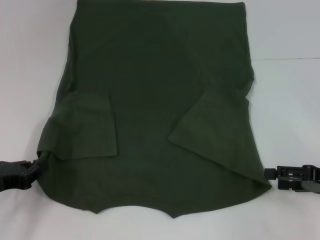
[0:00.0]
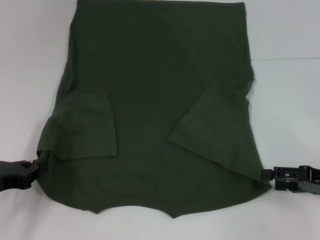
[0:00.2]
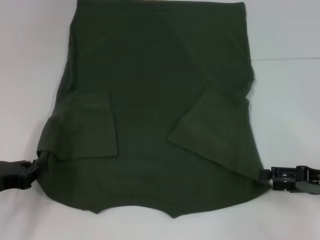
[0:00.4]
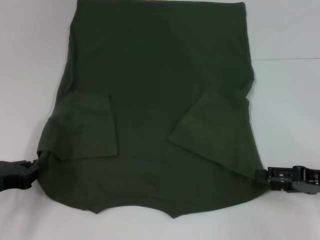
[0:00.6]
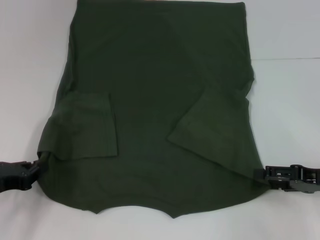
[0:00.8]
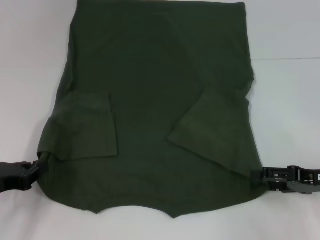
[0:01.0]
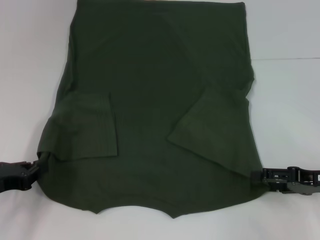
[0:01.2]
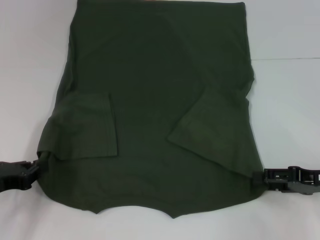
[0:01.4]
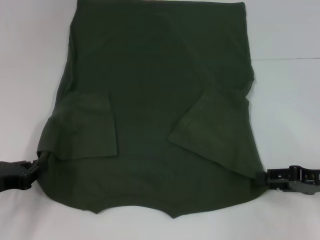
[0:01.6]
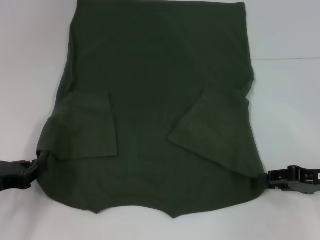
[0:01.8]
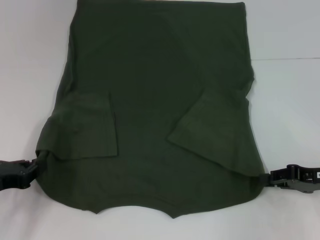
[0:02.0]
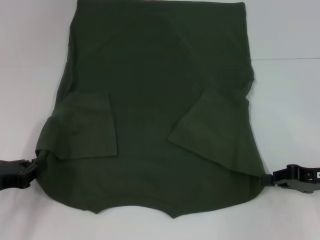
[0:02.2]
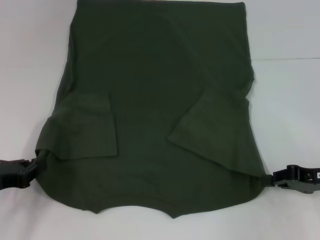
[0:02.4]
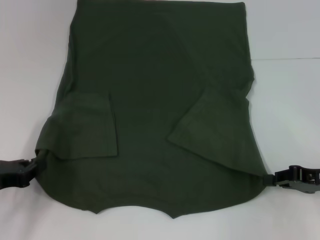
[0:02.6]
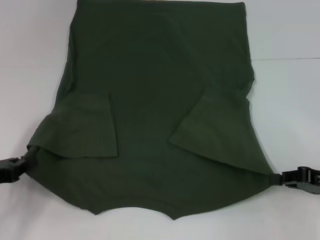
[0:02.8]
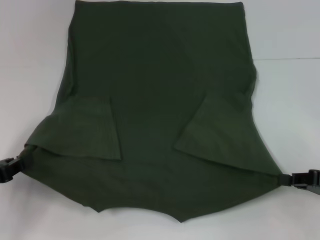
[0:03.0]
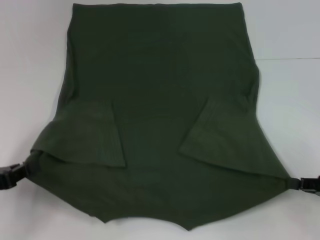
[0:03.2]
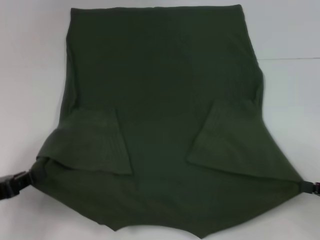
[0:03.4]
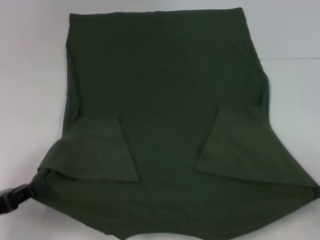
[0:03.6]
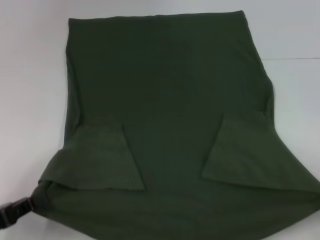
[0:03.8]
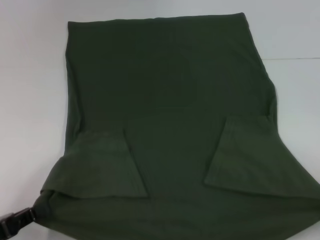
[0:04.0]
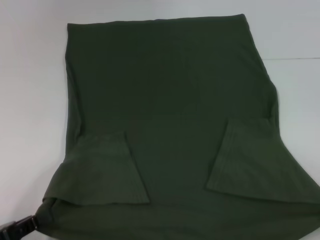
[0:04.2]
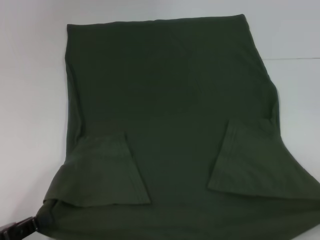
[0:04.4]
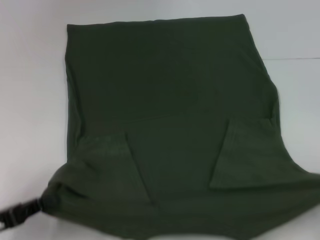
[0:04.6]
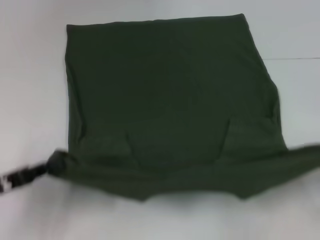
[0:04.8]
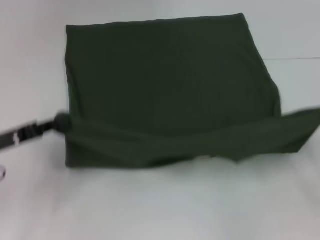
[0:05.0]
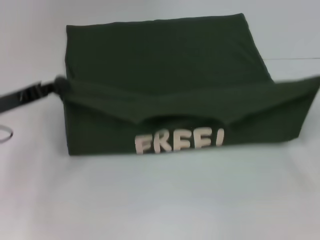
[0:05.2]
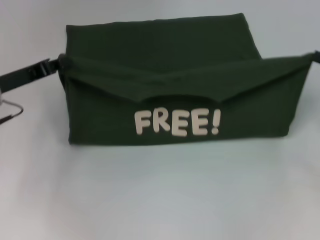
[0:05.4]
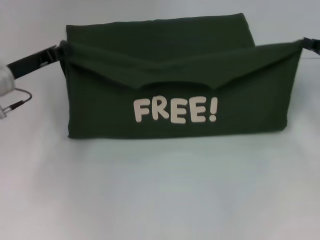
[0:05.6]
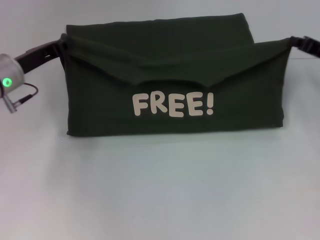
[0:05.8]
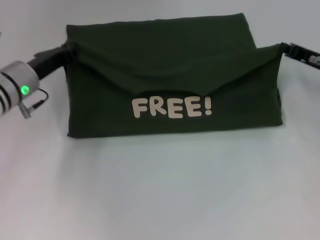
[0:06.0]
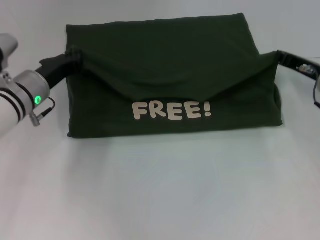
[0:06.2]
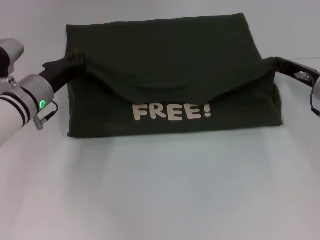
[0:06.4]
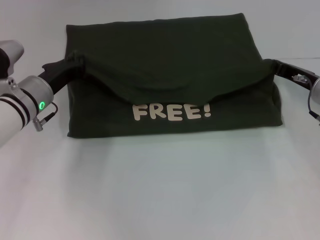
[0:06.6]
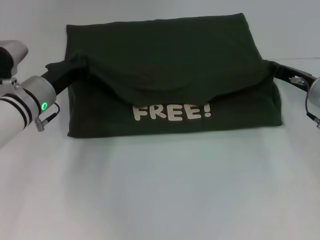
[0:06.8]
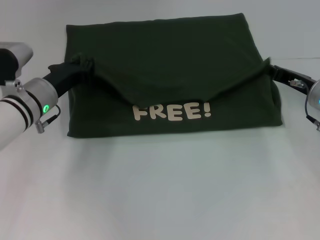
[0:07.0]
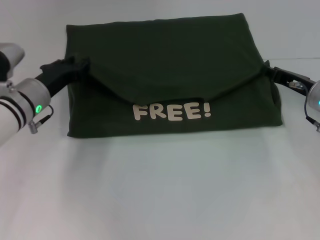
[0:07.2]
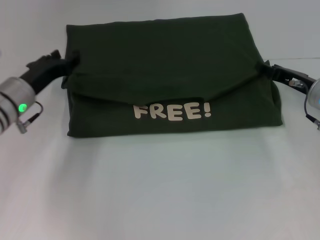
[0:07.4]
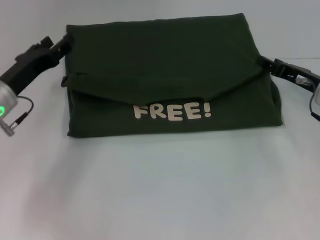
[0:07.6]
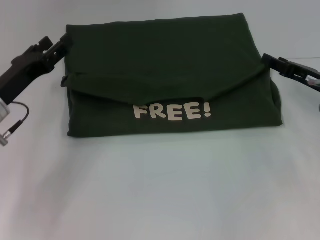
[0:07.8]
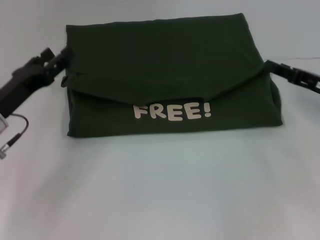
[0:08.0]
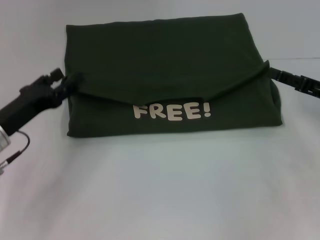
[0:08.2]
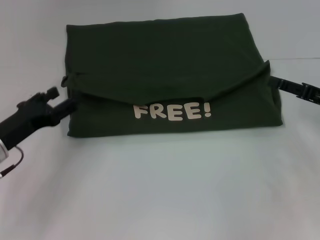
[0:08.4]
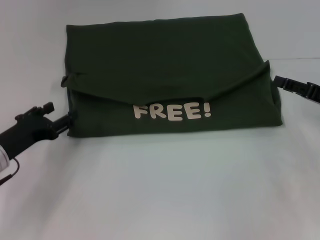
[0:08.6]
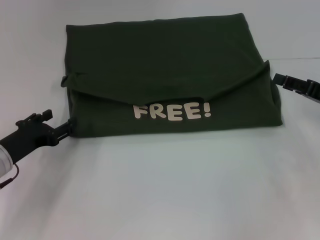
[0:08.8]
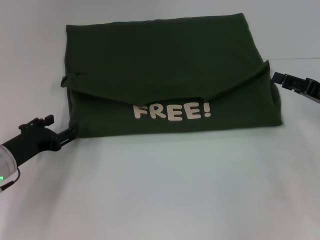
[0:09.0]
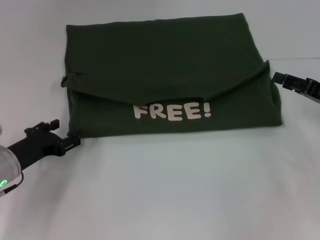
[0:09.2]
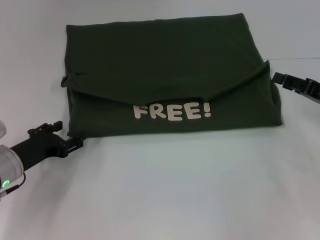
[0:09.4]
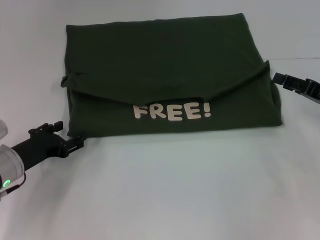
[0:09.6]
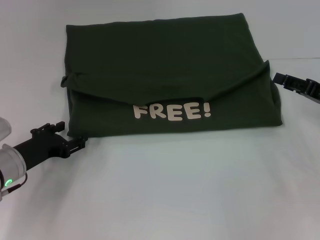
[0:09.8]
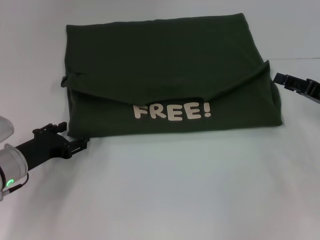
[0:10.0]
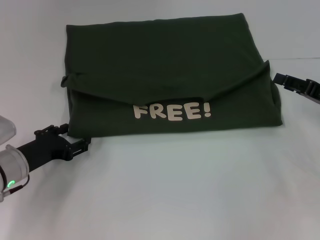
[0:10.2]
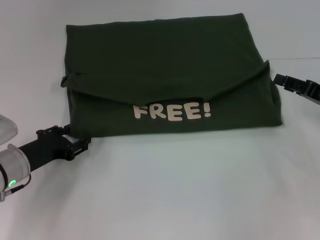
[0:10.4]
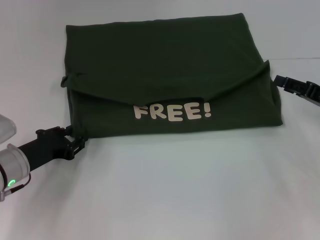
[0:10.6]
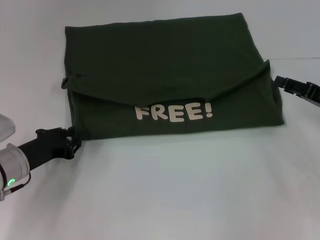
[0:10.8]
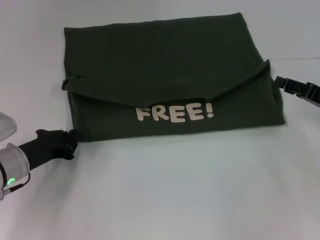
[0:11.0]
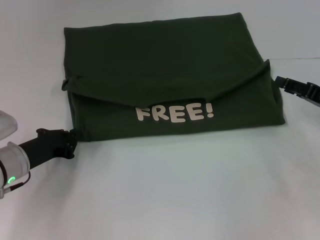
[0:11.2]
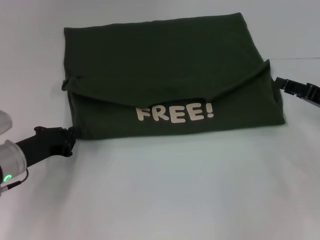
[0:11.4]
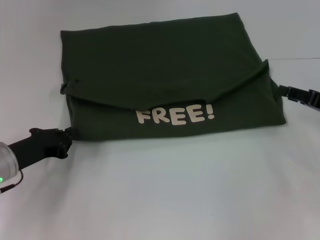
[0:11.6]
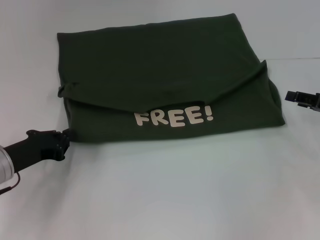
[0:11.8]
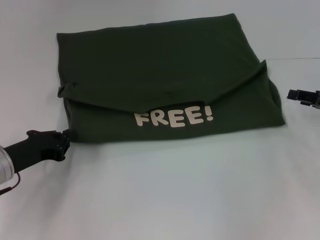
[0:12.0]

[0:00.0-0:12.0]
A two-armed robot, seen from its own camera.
Step, 0:02.2 to 0:07.2: Fold the clothes with your left hand.
Step, 0:02.2 to 0:07.2: Fold the clothes with your right hand.
0:01.6 to 0:03.0: The right gripper closes its fingers.
0:03.0 to 0:04.4: The left gripper is displaced backward by about 10 cm. Meanwhile the right gripper goes some 10 cm backward and to the right.
0:04.4 to 0:06.0: The right gripper travels forward and to the left by about 30 cm. The left gripper moves forward, some 25 cm.
0:06.0 to 0:07.6: The right gripper opens its fingers. Meanwhile the left gripper moves approximately 5 cm, and opens its fingers.
0:07.6 to 0:09.0: The right gripper travels backward by some 5 cm, while the left gripper goes some 10 cm downward and backward.
0:09.0 to 0:10.4: The grippers move only a little.
0:10.4 to 0:12.0: The left gripper closes its fingers.

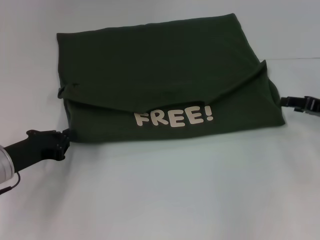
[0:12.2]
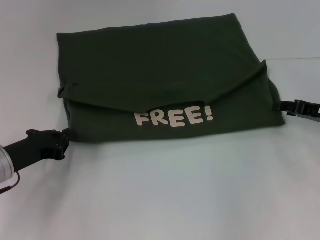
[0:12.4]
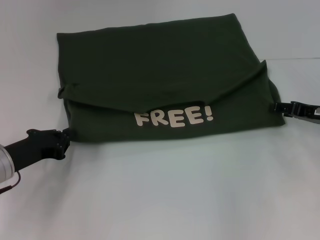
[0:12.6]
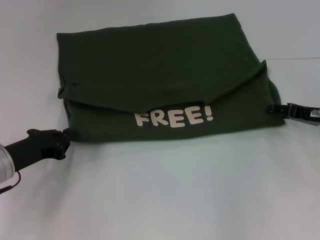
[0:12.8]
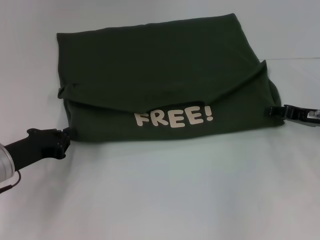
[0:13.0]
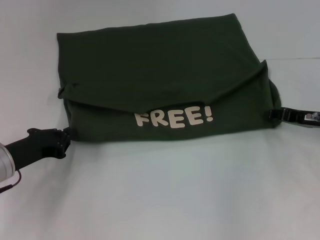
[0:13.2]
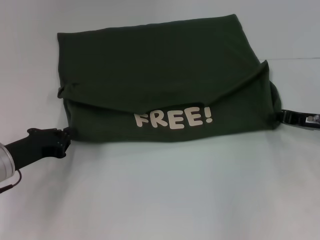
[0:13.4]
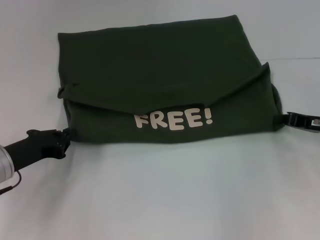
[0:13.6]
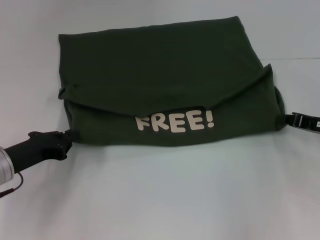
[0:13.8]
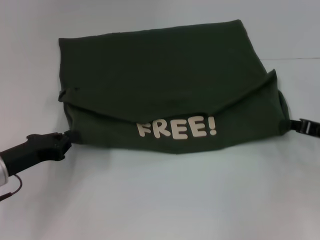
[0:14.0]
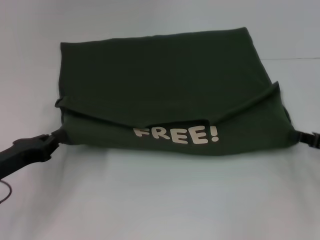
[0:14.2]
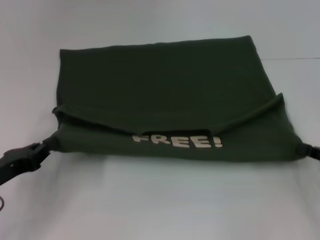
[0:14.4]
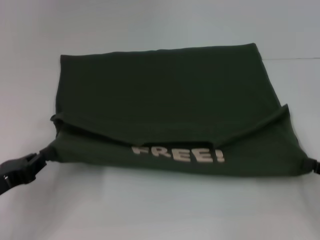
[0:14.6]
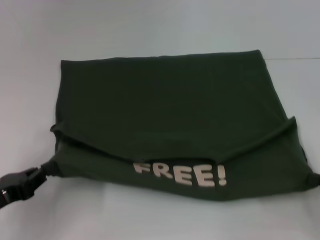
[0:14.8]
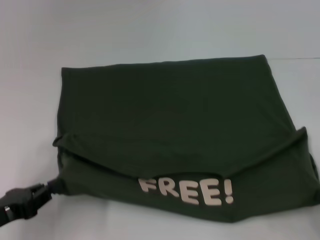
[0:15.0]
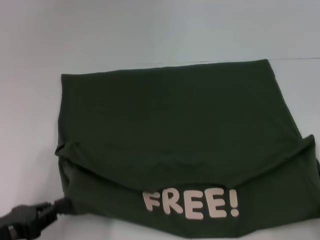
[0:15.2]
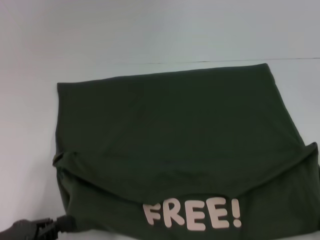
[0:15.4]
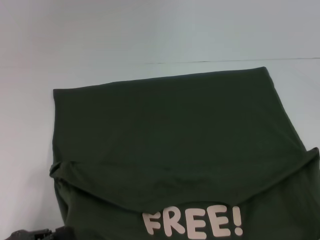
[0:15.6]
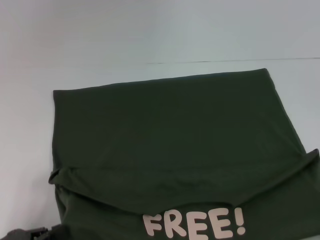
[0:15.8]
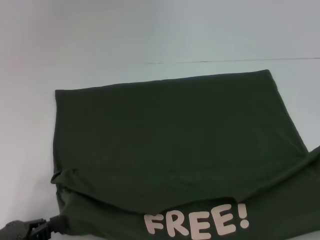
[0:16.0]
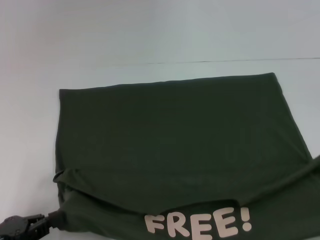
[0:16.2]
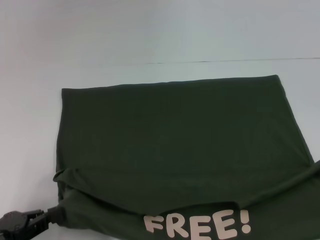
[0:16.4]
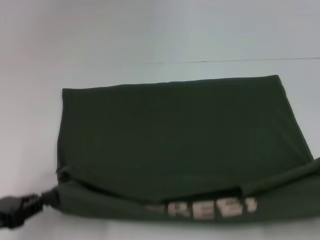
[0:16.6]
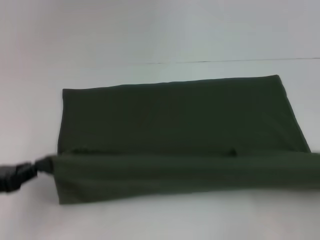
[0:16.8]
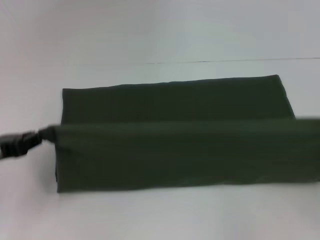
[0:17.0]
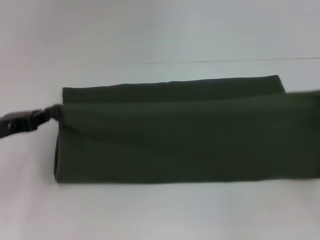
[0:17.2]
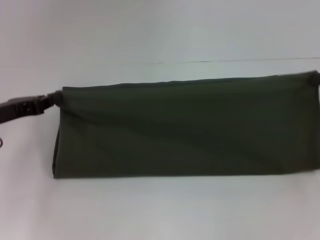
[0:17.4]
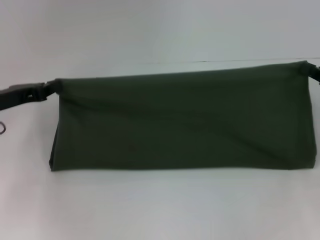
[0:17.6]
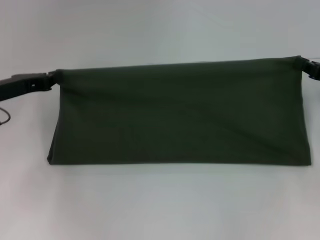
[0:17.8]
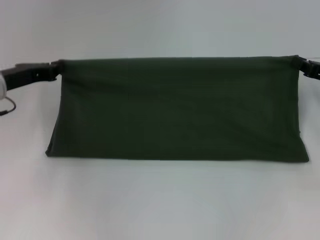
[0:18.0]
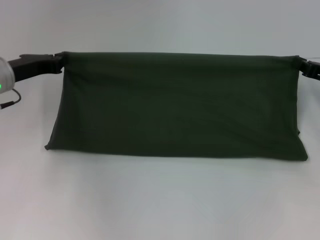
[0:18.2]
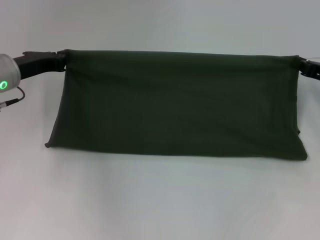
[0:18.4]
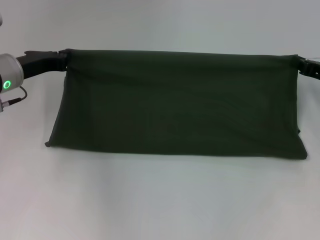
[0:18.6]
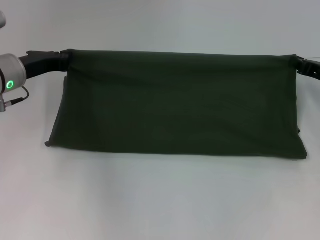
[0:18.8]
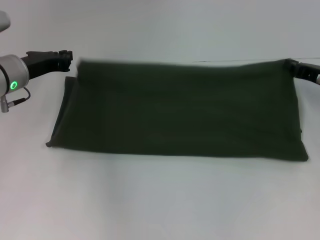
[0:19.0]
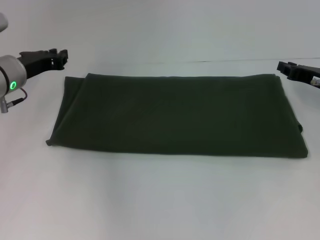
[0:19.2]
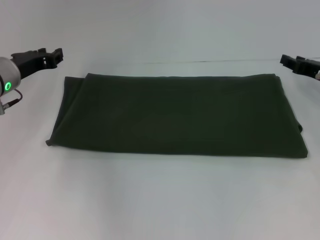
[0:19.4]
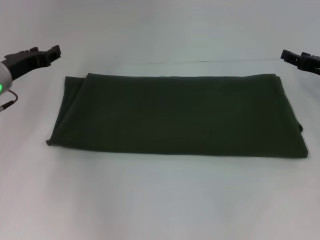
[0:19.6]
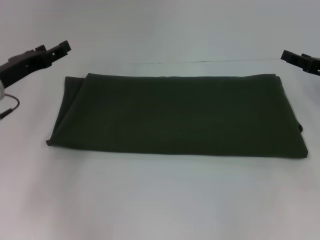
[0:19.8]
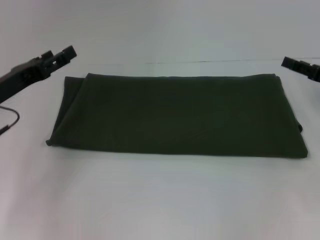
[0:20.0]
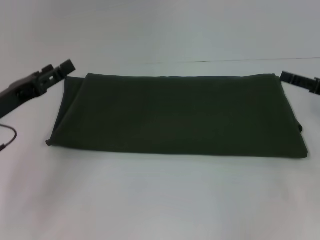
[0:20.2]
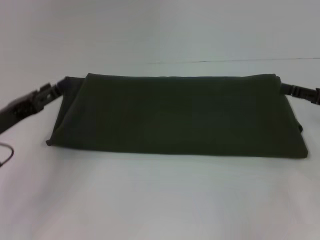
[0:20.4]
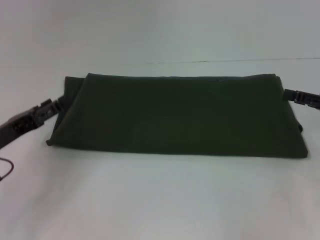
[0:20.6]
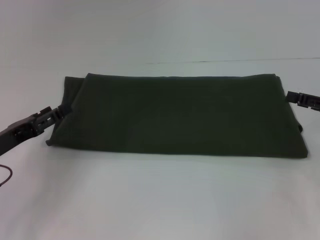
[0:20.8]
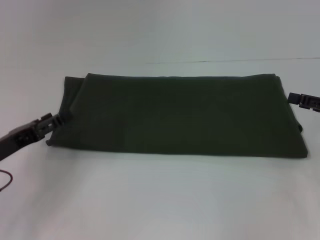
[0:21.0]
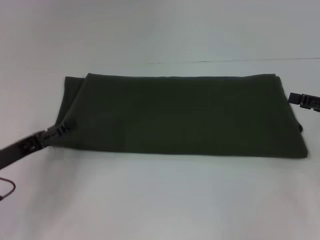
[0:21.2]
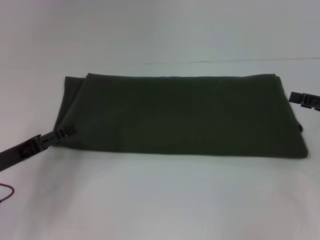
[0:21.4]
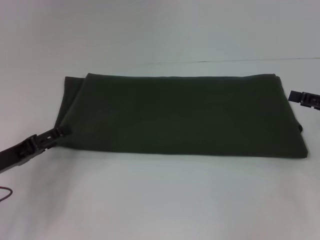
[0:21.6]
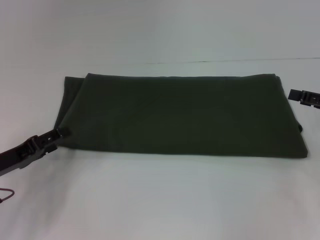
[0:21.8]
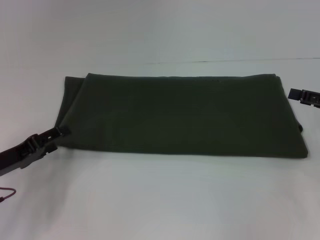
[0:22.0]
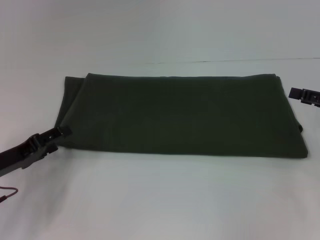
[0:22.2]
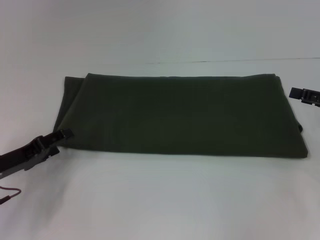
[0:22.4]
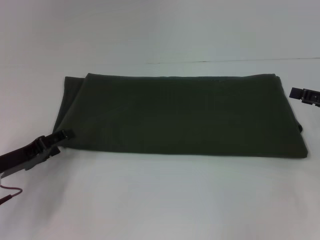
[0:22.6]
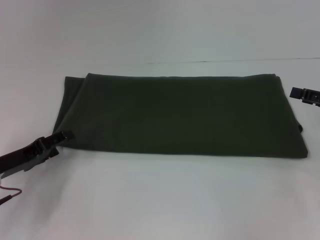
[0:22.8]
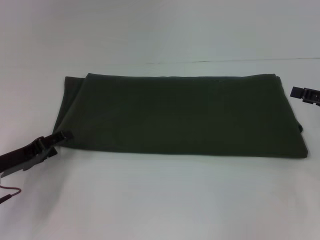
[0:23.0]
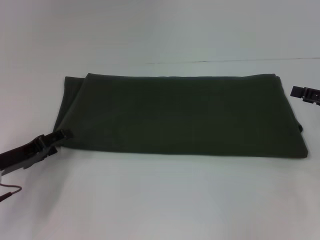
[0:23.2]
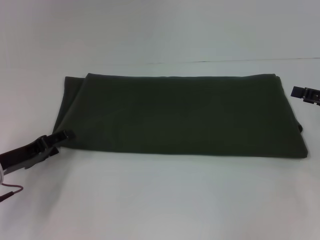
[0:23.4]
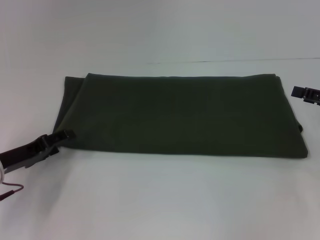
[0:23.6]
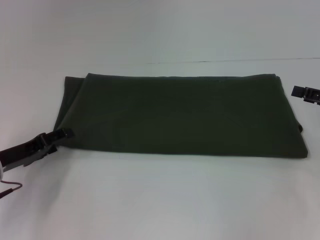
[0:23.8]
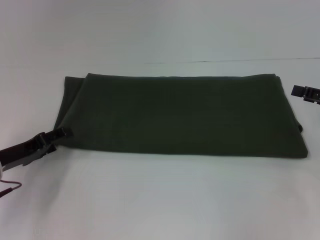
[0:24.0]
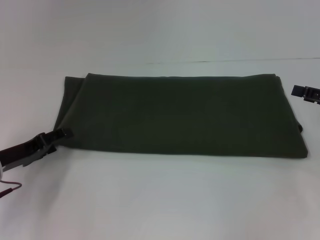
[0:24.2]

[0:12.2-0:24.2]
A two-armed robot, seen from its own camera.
Step, 0:12.2 to 0:15.8: Pull the clothes with your left hand.
Step, 0:12.2 to 0:15.8: Pull the clothes with your right hand.
Step, 0:16.0 to 0:19.0: Fold the clothes with your right hand.
0:12.2 to 0:13.8: The right gripper closes its fingers.
0:13.8 to 0:15.2: The right gripper is displaced backward by some 20 cm. Meanwhile the left gripper travels backward by approximately 10 cm.
0:15.2 to 0:16.6: The grippers move only a little.
0:16.6 to 0:18.2: Both grippers travel together forward, approximately 25 cm.
0:18.2 to 0:19.8: The right gripper opens its fingers. The left gripper opens up.
0:19.8 to 0:21.2: The right gripper shifts about 5 cm backward; the left gripper travels backward and downward by some 10 cm.
0:22.6 to 0:24.2: The grippers make only small movements.
